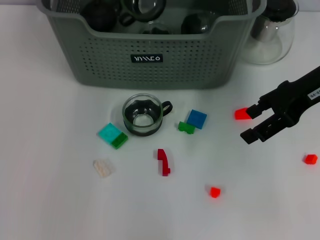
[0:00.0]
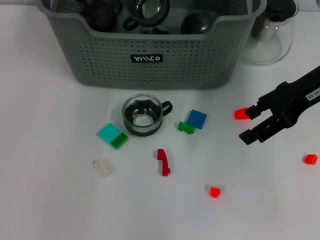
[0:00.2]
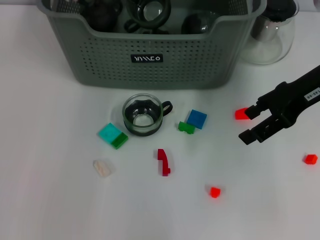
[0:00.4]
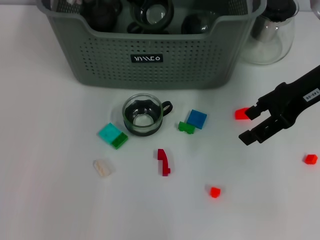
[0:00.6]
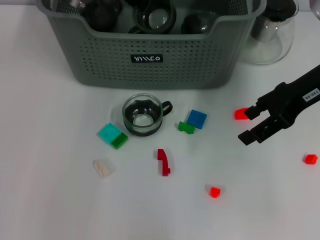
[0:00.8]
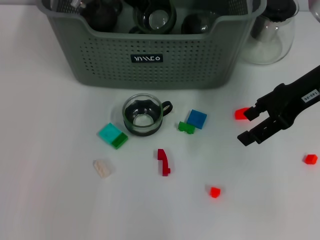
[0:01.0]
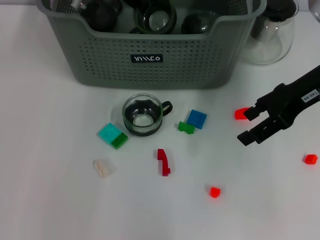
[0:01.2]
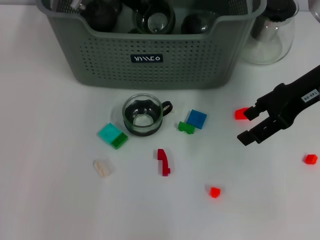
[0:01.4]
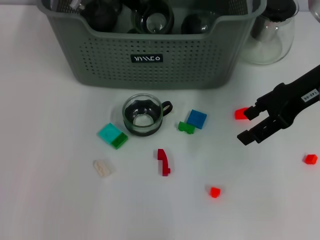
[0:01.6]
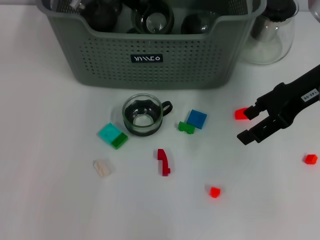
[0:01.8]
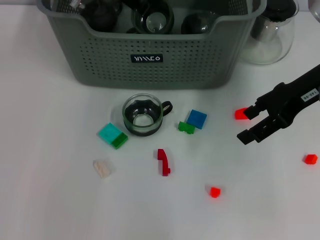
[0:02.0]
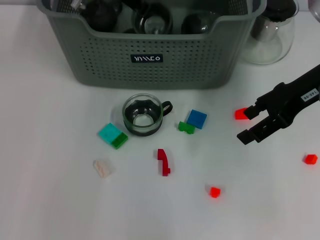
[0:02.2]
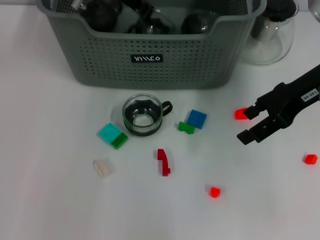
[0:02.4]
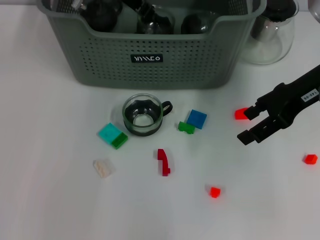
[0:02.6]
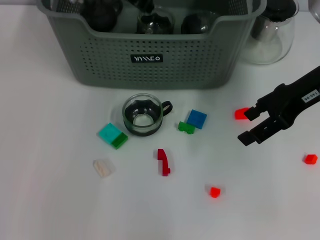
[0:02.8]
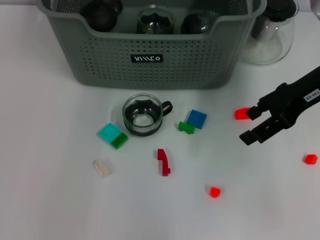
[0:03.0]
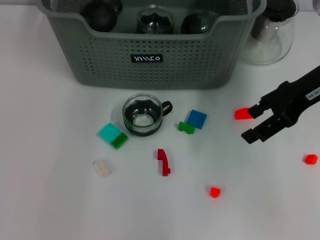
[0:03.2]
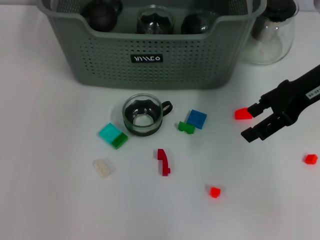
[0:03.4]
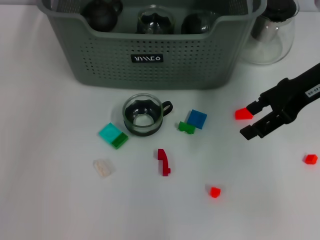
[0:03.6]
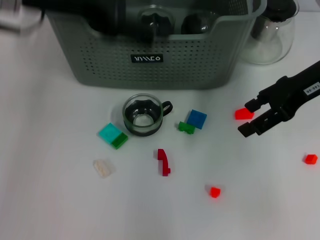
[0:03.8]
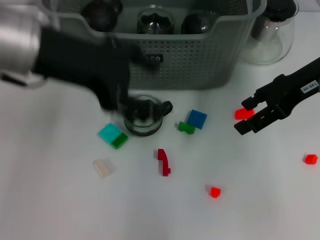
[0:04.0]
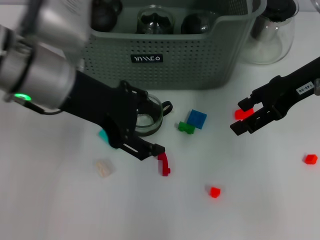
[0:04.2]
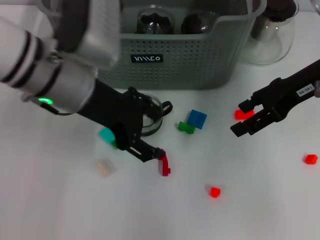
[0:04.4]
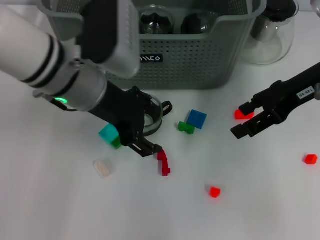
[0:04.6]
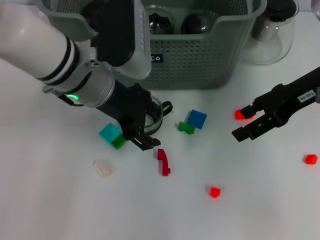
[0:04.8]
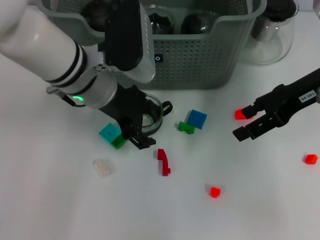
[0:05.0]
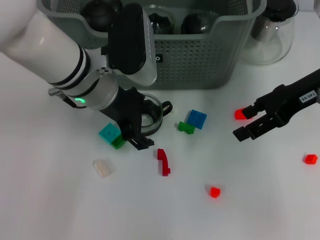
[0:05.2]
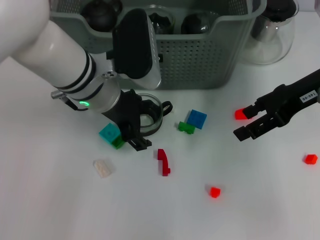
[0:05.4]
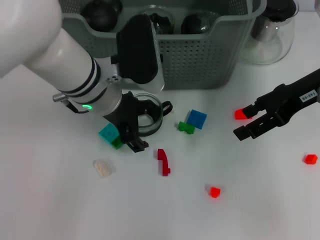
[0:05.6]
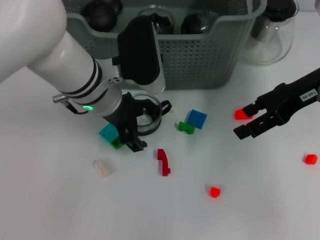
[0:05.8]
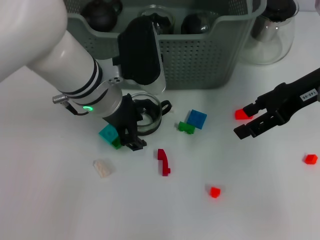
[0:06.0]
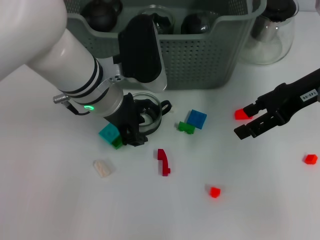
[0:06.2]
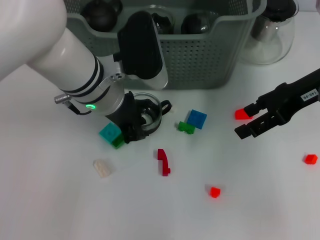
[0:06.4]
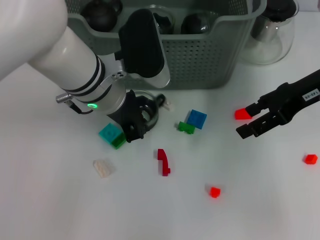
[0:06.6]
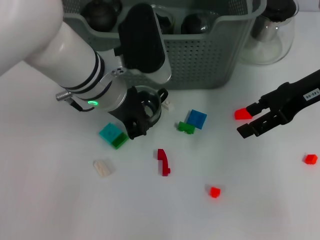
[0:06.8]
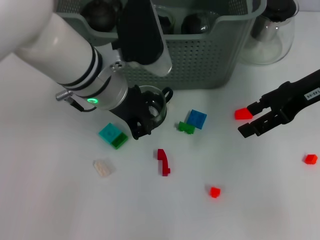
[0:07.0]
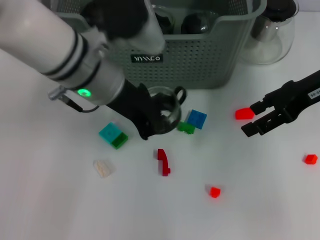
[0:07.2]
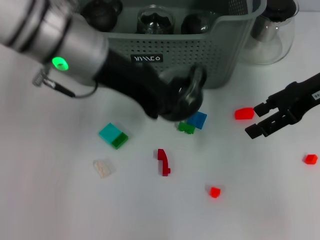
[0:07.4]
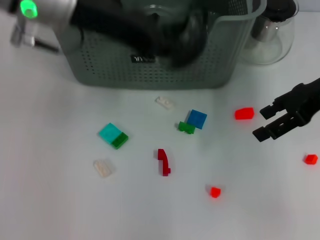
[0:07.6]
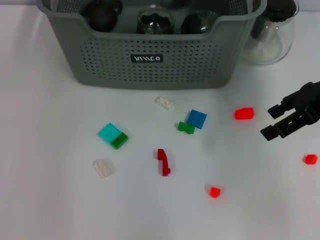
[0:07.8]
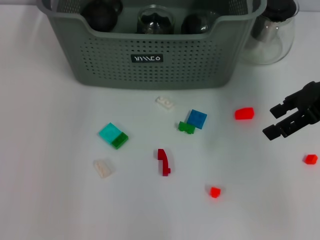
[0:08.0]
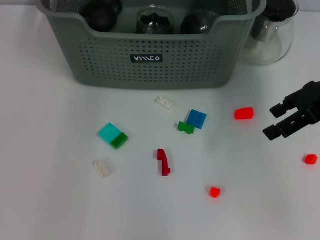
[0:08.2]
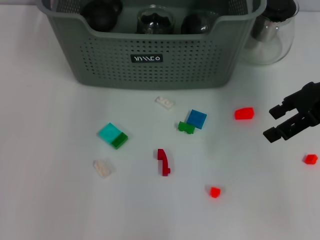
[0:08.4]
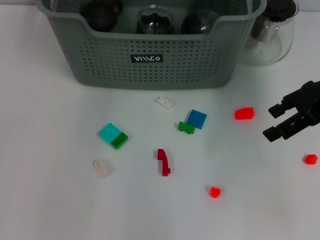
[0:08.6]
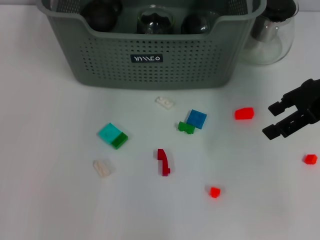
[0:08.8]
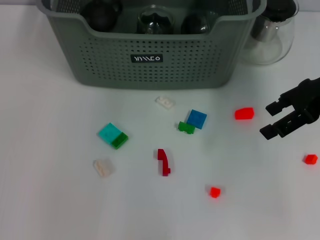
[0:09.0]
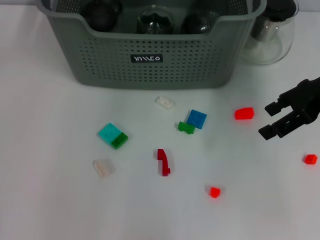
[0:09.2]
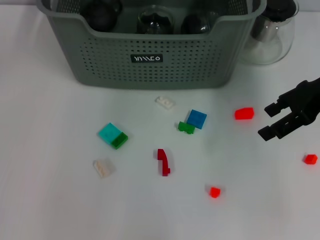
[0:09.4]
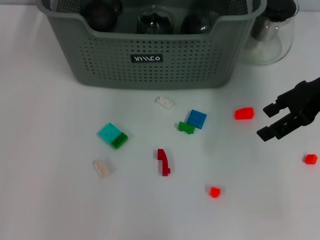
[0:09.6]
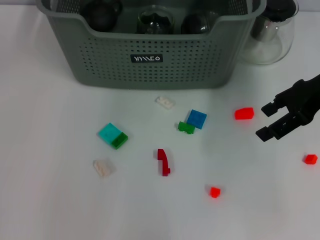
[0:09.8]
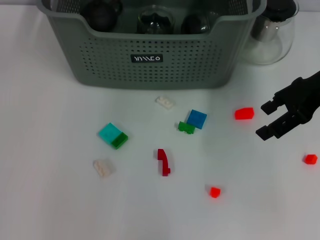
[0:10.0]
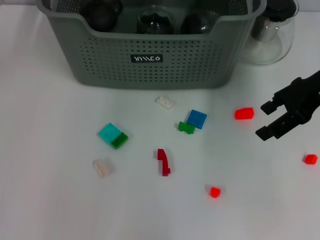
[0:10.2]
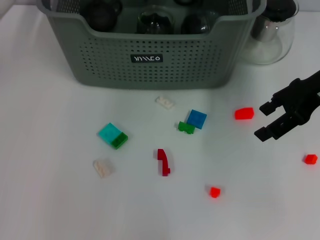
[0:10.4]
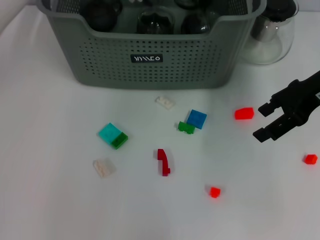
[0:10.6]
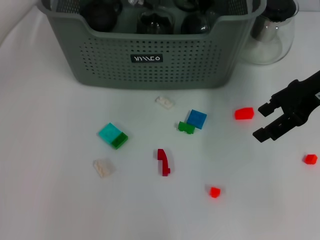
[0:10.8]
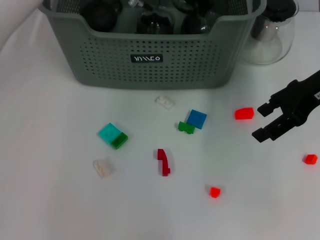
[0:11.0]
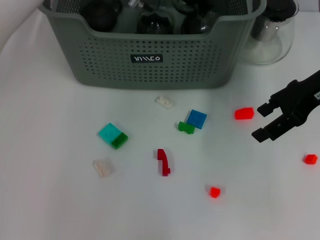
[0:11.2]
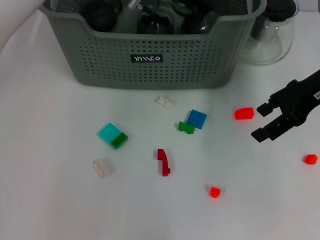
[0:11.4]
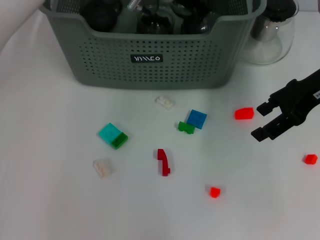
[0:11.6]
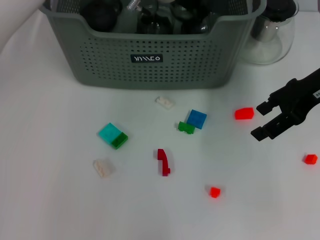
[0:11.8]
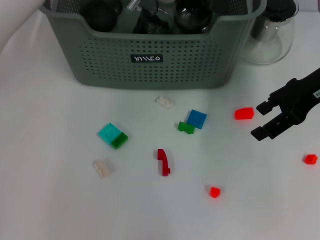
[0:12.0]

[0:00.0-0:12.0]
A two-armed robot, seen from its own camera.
Task of the whole recording: pick up the teacup on the table and place it into the storage bin, pick up the block on the table and place it into the storage bin.
Step, 0:00.0 to 0:02.6: Place the cup in the storage box with left gripper.
Step, 0:03.0 to 0:06.6: Grasp the cup with left gripper.
0:00.0 to 0:01.6: The grippers stay close to where they were, moving slightly.
0:01.6 to 0:03.0: The left gripper opens its fingers.
0:03.0 to 0:04.4: The left gripper shifts roughly 15 cm backward, and opens its fingers.
0:04.4 to 0:06.0: The left gripper moves downward, some 5 cm.
0:06.0 to 0:07.6: The left gripper goes approximately 15 cm upward, and closes.
0:07.6 to 0:09.0: The left gripper travels forward and to the right by roughly 15 cm.
0:09.0 to 0:12.0: There are only small adjustments of the grippers.

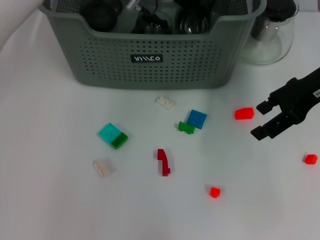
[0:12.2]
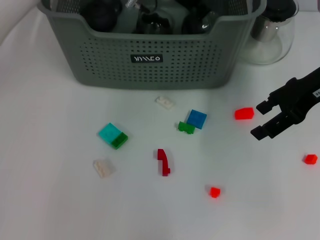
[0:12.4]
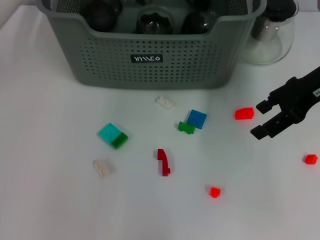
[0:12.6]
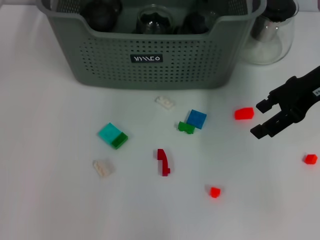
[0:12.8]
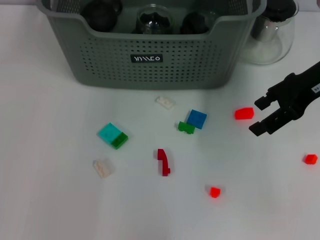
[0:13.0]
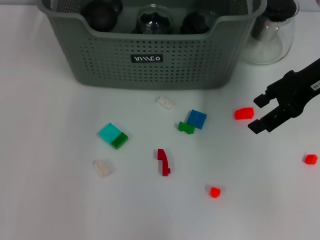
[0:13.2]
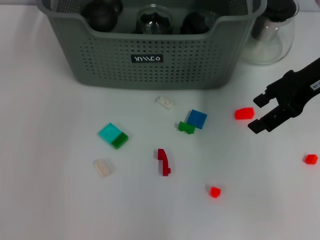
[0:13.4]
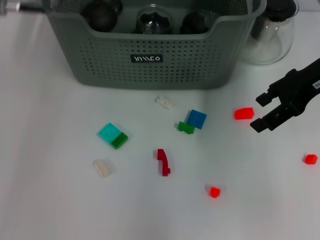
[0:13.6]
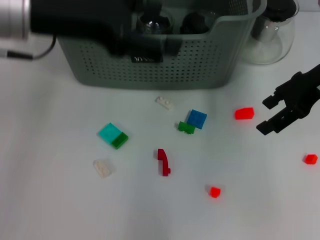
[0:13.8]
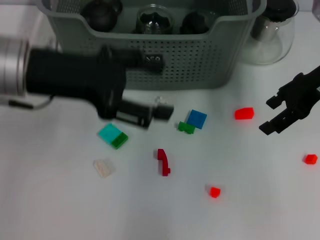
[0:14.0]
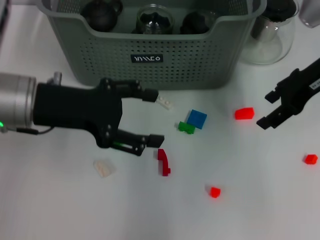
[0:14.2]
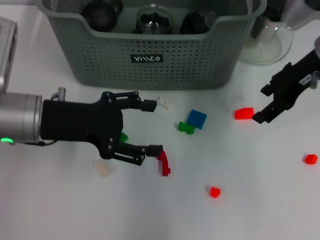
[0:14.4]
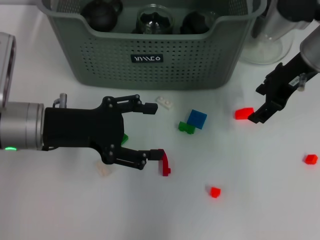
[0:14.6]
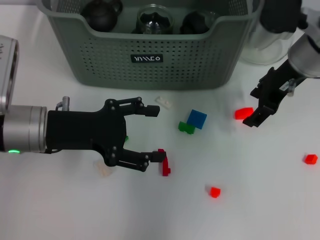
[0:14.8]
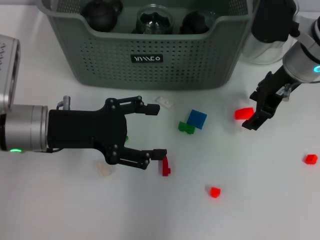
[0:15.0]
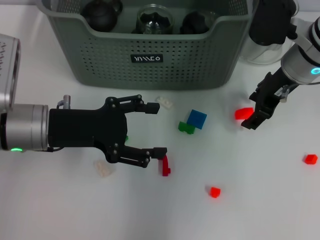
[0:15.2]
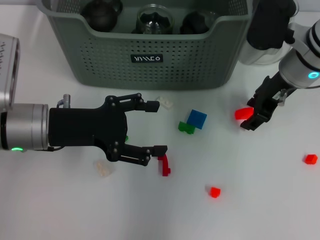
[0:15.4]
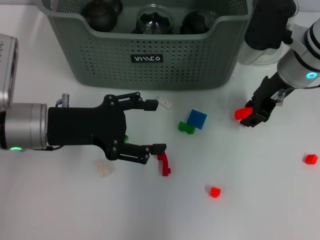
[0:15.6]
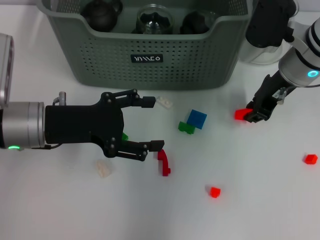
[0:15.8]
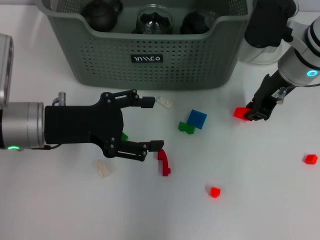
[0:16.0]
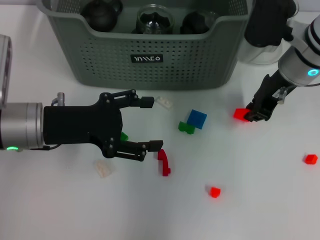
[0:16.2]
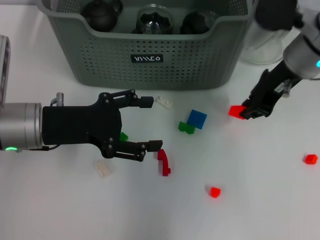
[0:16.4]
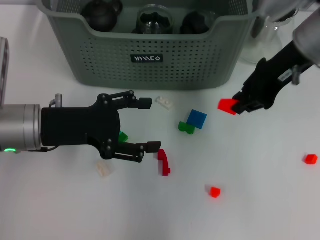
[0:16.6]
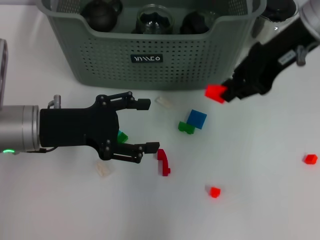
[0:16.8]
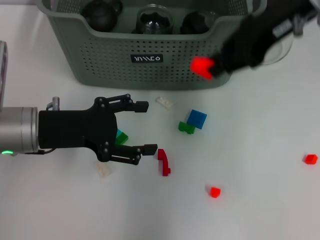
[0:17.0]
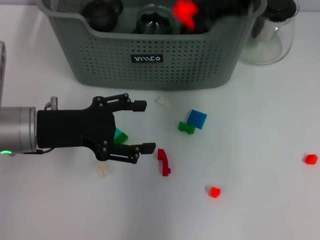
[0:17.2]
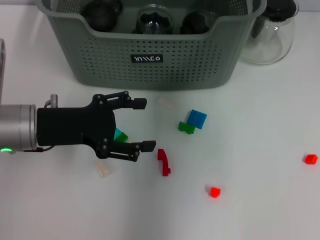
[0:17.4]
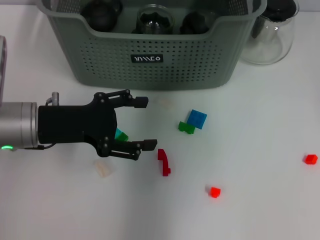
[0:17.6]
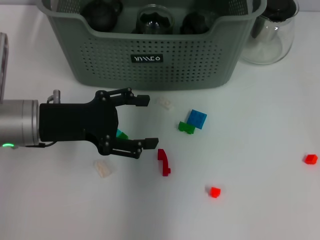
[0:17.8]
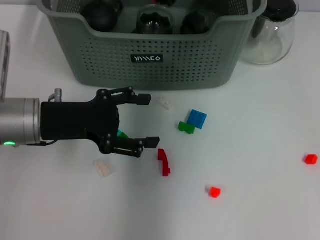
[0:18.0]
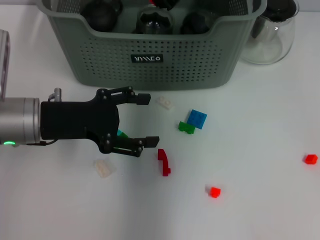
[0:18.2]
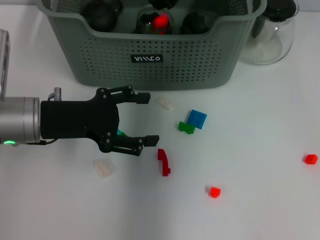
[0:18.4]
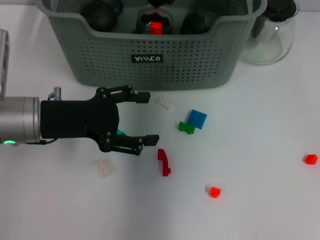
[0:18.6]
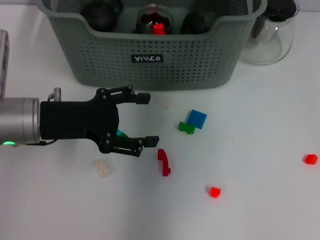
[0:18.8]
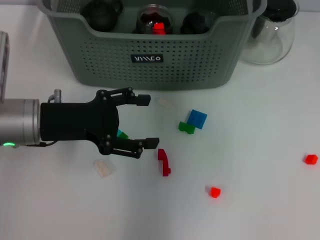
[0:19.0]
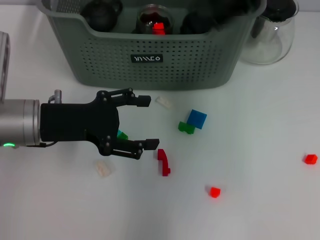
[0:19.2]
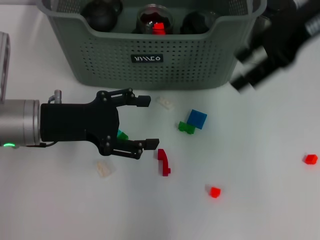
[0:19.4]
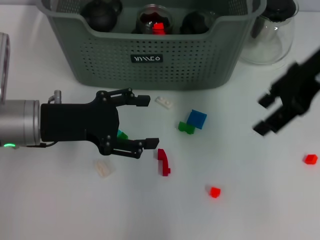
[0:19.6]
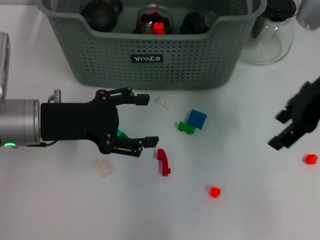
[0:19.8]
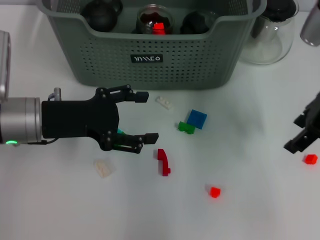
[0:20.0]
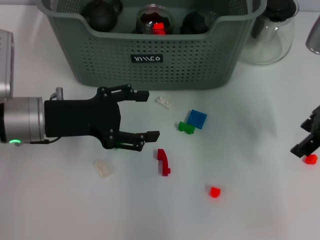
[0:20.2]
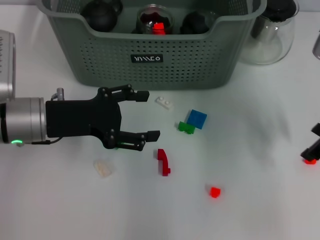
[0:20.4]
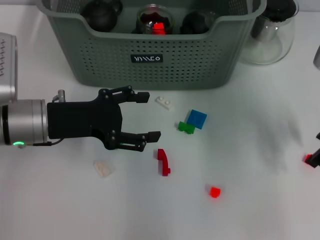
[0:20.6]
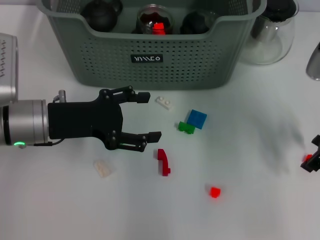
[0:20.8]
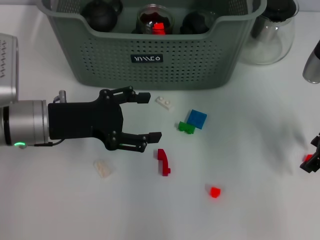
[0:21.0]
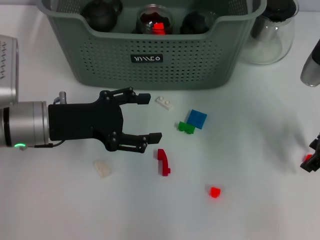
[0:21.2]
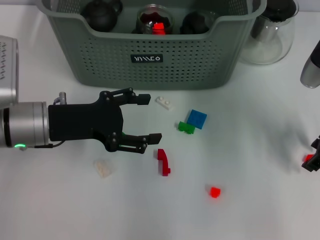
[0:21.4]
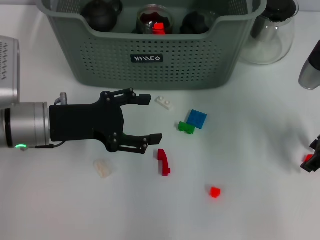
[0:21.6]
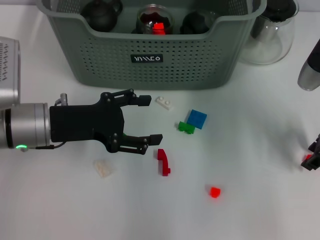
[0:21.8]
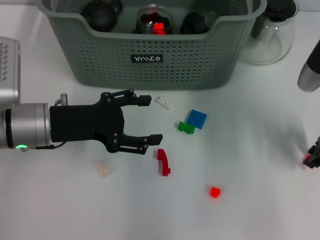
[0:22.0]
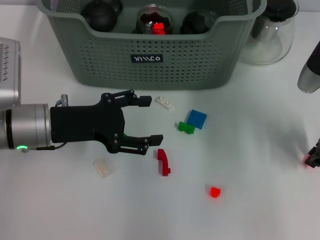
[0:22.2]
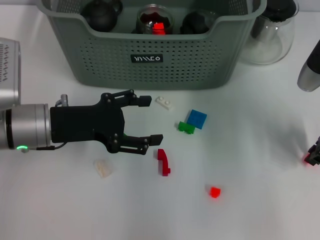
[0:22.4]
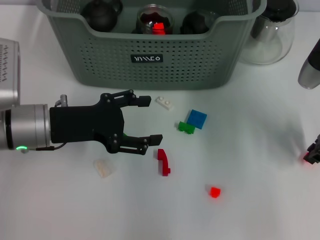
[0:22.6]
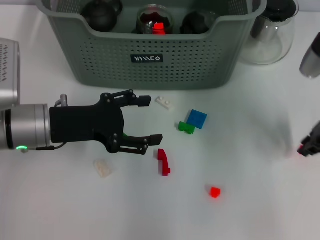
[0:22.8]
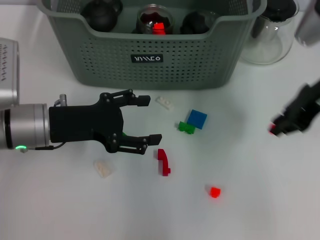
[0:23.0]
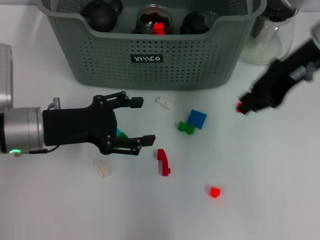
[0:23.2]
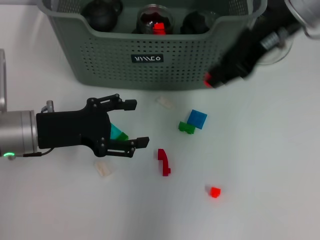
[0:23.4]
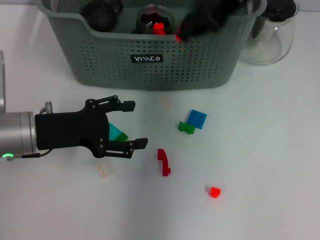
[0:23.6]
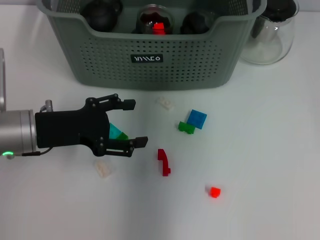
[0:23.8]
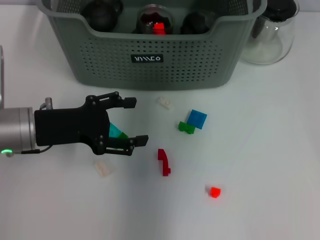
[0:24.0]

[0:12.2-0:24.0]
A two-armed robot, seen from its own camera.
Task of the whole recording: pick up the teacup on the table and place it into the storage bin, pick up the block on the table and place it into the storage bin.
Step, 0:12.4 to 0:15.8: Grasp the orange block with right gripper.
Step, 0:16.0 to 0:18.4: Place the orange block in the storage box with right gripper.
Step, 0:18.6 to 0:22.0: Grasp the orange block with right gripper.
0:12.2 to 0:13.6: The left gripper moves to the left, backward and upward, about 20 cm, and opens up.
0:13.6 to 0:15.2: The right gripper shifts roughly 10 cm to the left and downward. Meanwhile the left gripper goes some 15 cm downward.
0:15.2 to 0:16.6: The right gripper goes roughly 5 cm upward, and closes up.
0:16.6 to 0:18.2: The right gripper goes approximately 15 cm to the left and forward.
0:18.2 to 0:19.6: The right gripper goes approximately 20 cm to the right and backward, and opens.
0:19.6 to 0:21.0: The right gripper travels downward by about 10 cm.
0:21.0 to 0:22.6: The right gripper closes its fingers.
0:22.6 to 0:24.0: The right gripper travels to the left, upward and forward by approximately 25 cm.
